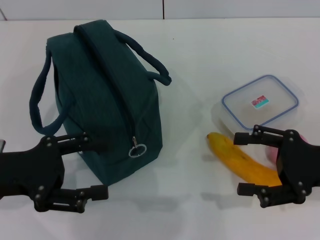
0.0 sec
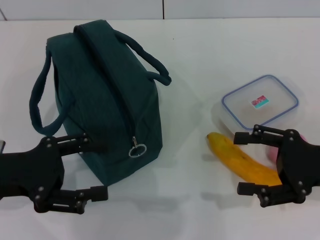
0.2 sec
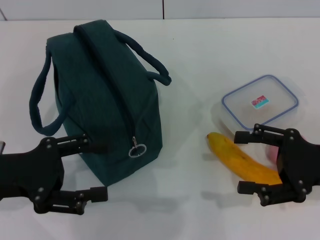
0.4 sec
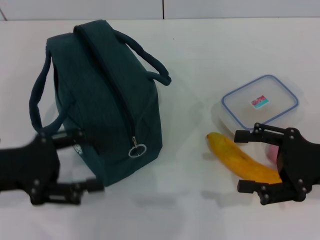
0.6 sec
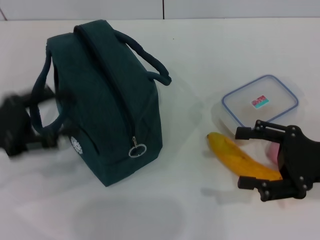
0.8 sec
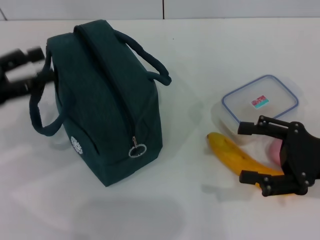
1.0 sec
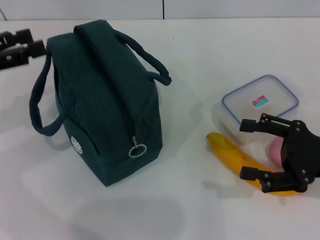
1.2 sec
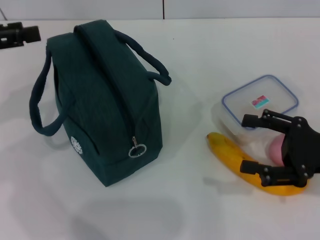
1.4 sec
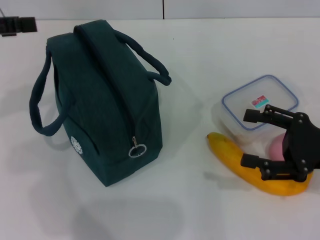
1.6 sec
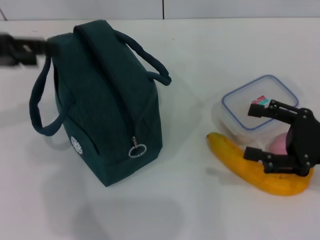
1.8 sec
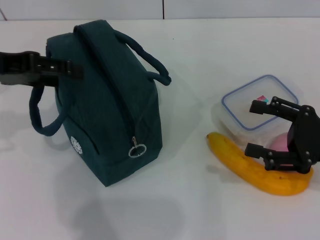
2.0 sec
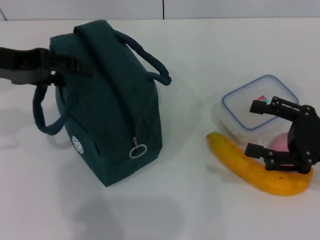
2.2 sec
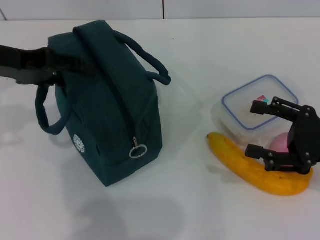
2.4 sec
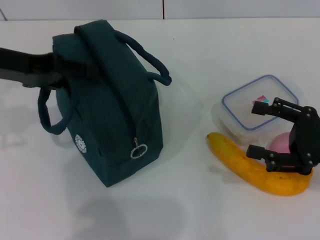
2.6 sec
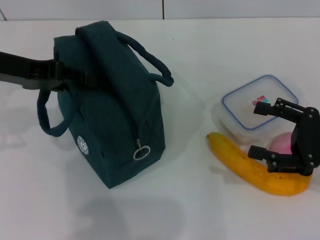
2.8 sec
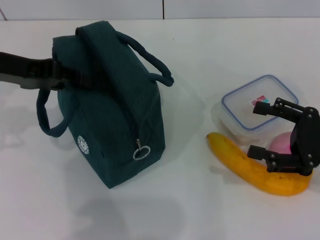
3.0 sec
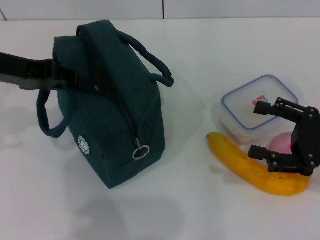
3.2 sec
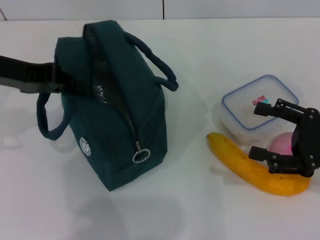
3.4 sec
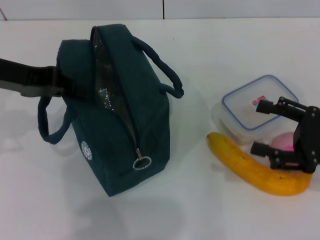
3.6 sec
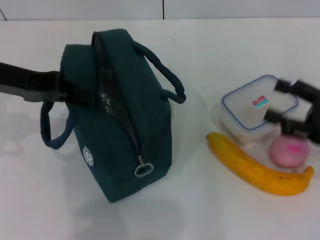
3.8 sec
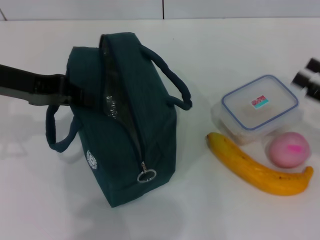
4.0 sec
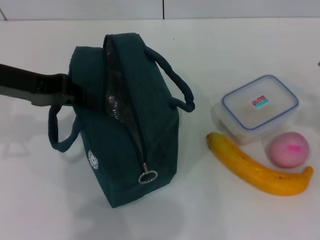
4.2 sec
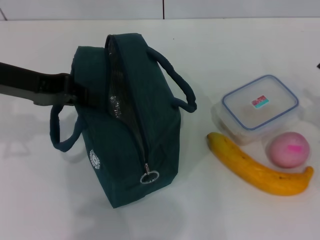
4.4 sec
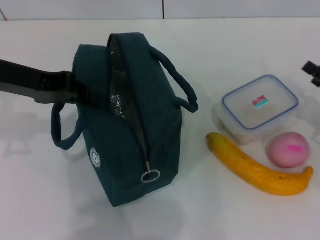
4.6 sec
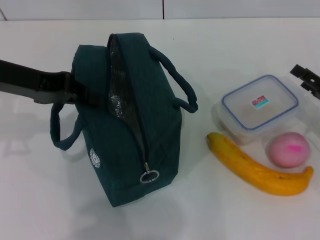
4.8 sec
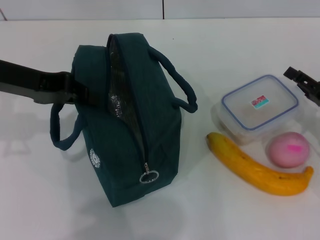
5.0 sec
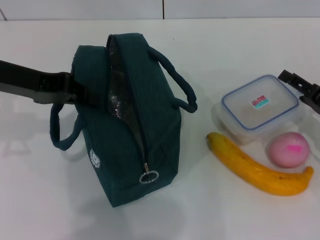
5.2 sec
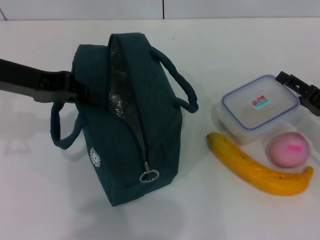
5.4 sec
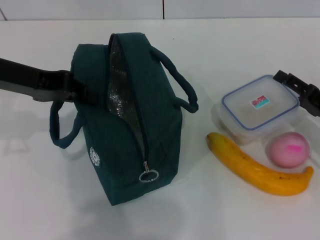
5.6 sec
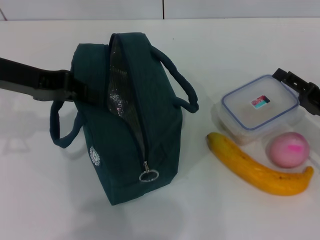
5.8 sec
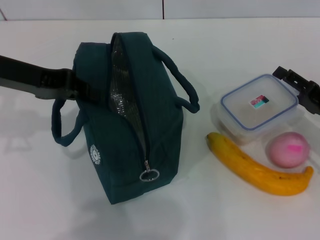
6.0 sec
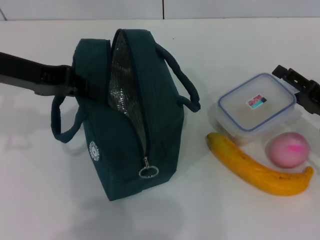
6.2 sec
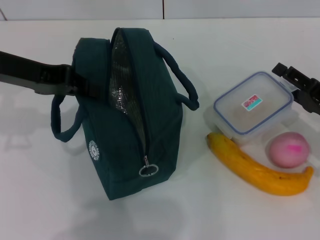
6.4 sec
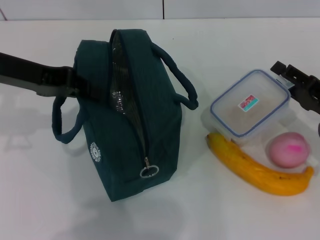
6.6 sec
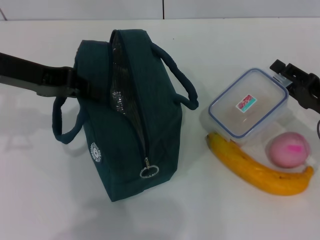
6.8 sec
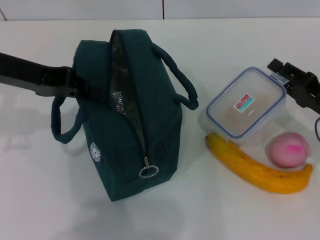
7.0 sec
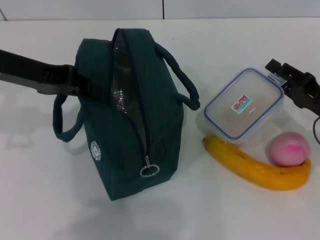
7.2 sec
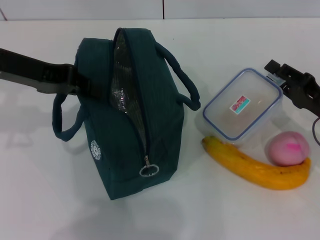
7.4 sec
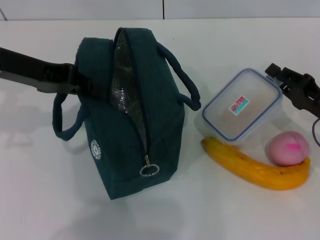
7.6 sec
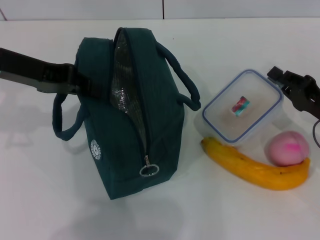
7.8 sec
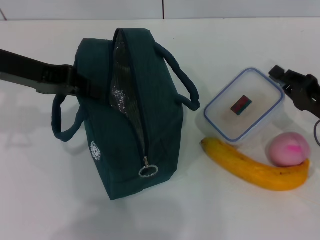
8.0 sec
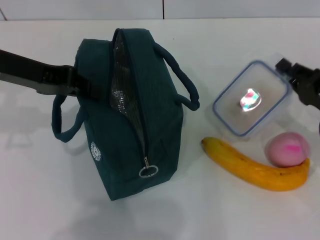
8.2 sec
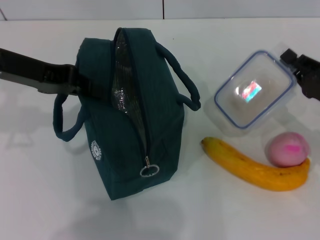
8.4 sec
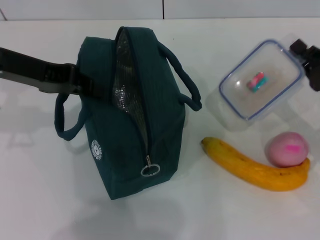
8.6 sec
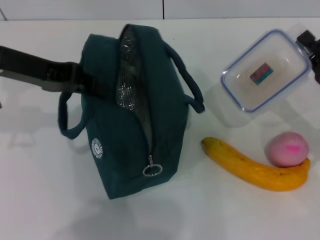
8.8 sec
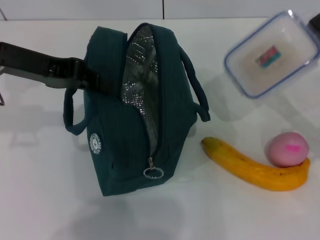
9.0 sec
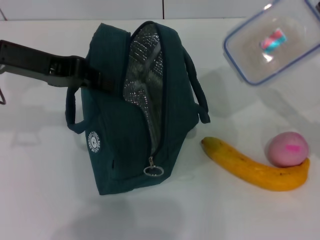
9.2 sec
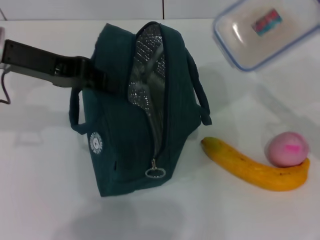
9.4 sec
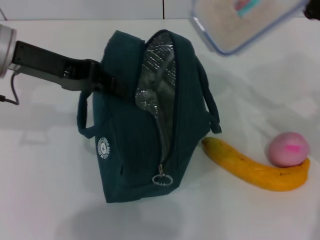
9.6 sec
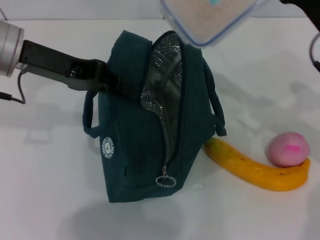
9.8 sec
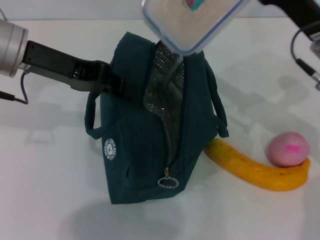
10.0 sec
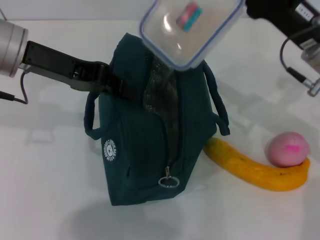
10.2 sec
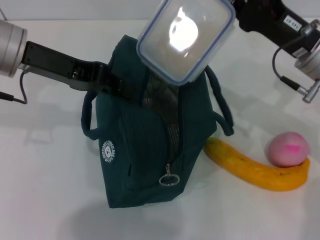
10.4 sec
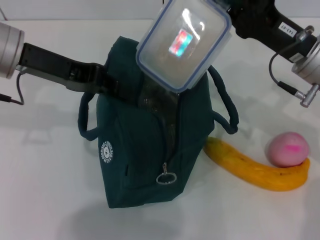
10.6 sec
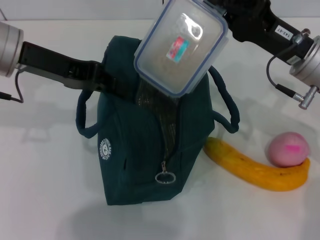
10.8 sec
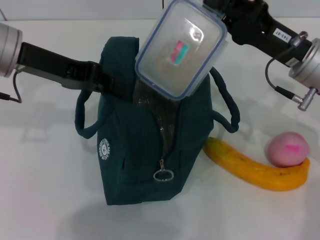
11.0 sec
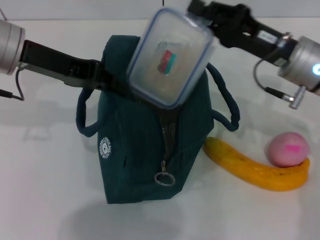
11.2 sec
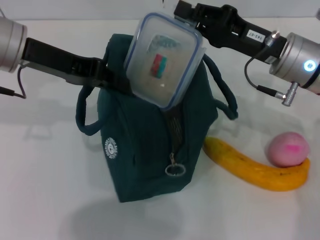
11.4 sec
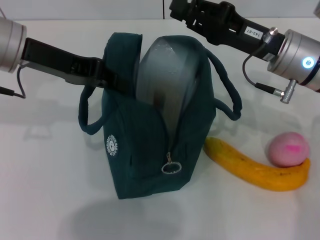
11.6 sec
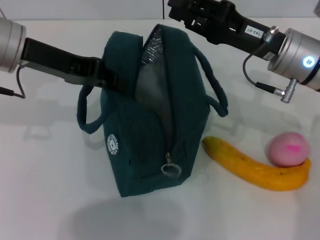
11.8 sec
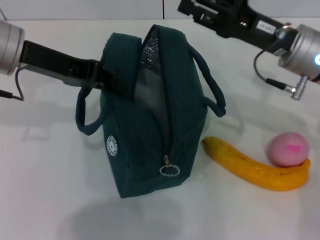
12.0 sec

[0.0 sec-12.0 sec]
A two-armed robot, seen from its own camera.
Step, 0.0 sec to 4.2 sec: Hold the lunch bag with your left hand.
Step, 4.4 sec to 7.8 sec: Pick up the lunch box with your right hand.
Step, 8.0 sec to 11.6 sec: Place the lunch box into the lunch bag with your right hand.
0.0 sec to 1.6 sec: The left gripper shifts approximately 15 cm upward and forward.
1.6 sec to 3.0 sec: The left gripper travels to the right by approximately 5 cm.
3.0 sec to 4.4 sec: The left gripper closes up. Meanwhile the right gripper travels to the right by about 5 cm.
4.4 sec to 6.0 sec: The right gripper heads to the left, covering approximately 5 cm.
6.0 sec to 7.6 sec: The right gripper closes its fingers.
7.6 sec to 9.0 sec: The right gripper closes its fingers.
9.0 sec to 10.4 sec: The right gripper shifts some 10 cm to the left, forward and upward.
10.4 sec to 12.0 sec: The right gripper opens its fingers.

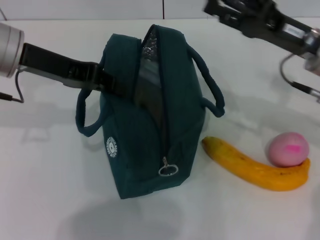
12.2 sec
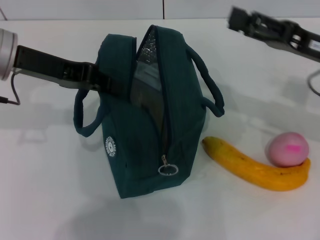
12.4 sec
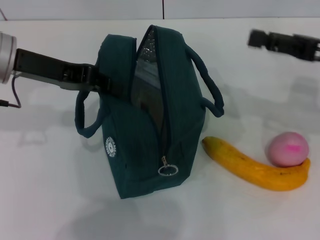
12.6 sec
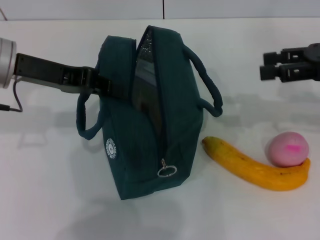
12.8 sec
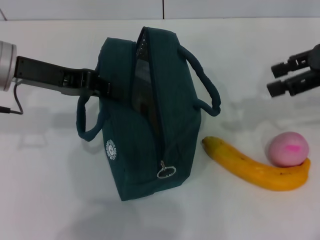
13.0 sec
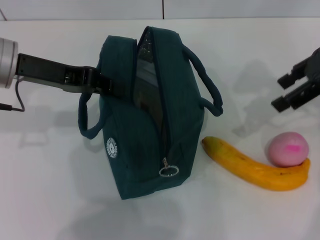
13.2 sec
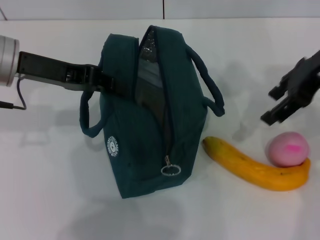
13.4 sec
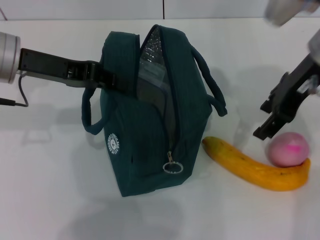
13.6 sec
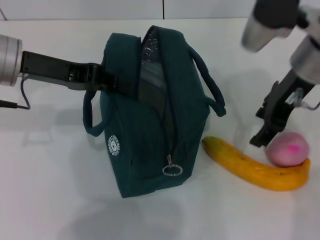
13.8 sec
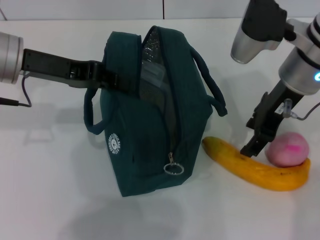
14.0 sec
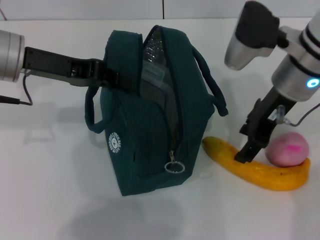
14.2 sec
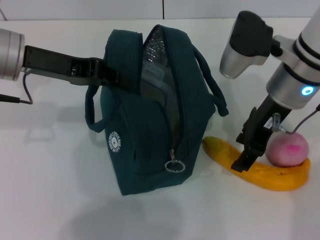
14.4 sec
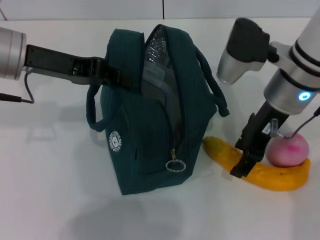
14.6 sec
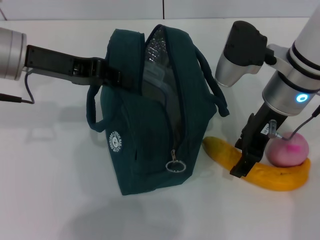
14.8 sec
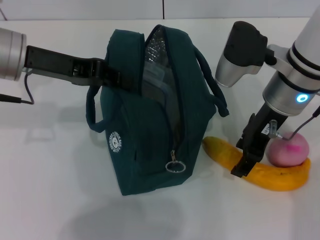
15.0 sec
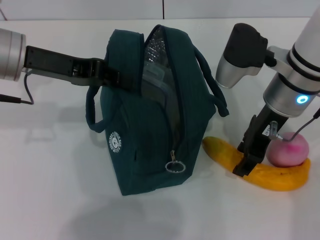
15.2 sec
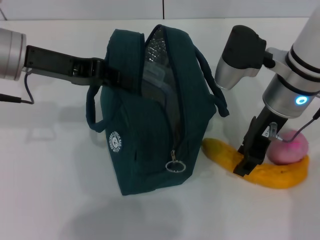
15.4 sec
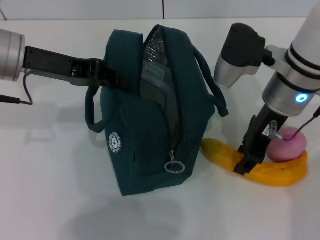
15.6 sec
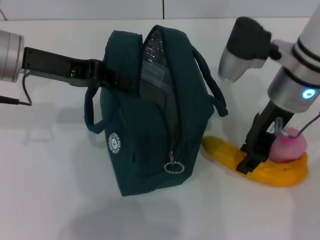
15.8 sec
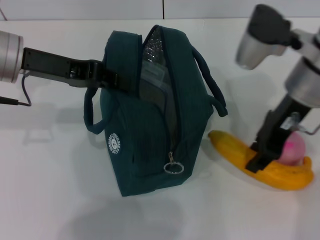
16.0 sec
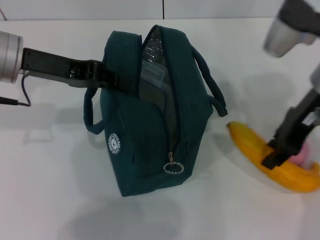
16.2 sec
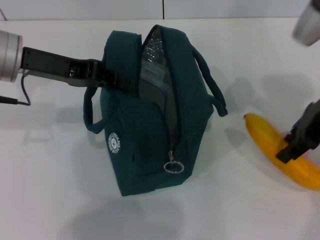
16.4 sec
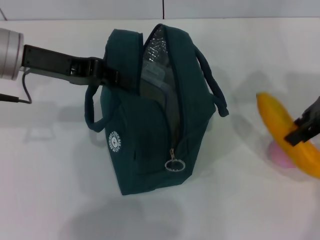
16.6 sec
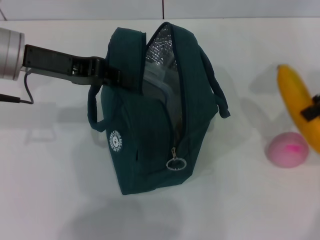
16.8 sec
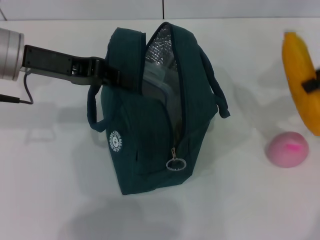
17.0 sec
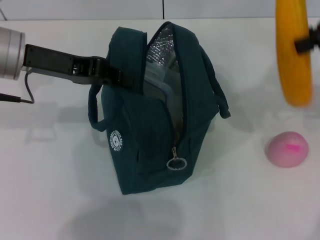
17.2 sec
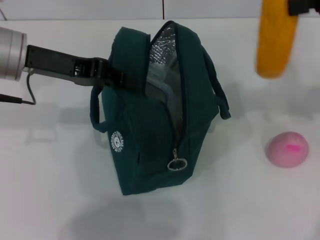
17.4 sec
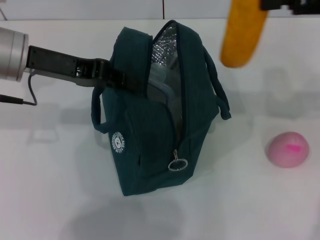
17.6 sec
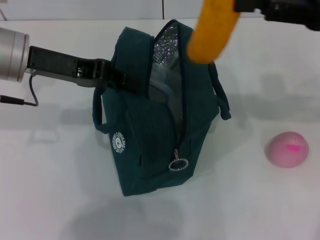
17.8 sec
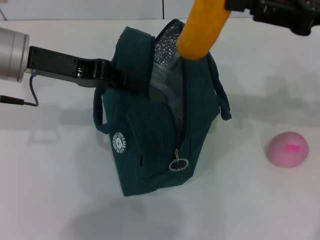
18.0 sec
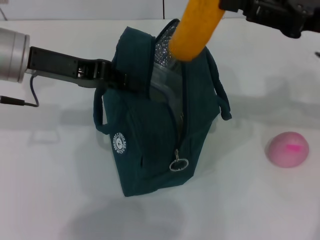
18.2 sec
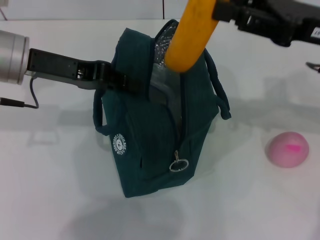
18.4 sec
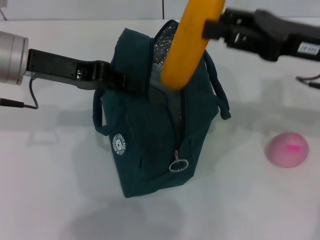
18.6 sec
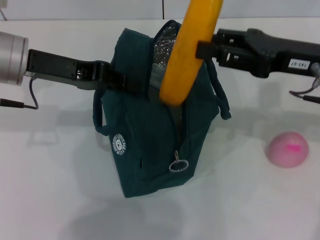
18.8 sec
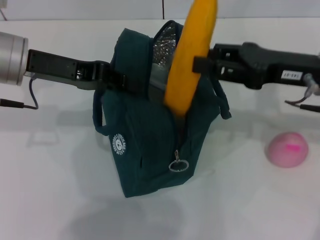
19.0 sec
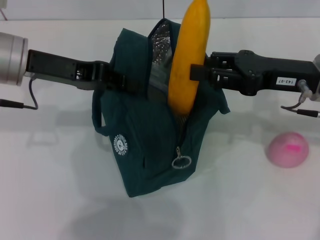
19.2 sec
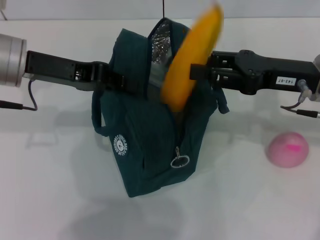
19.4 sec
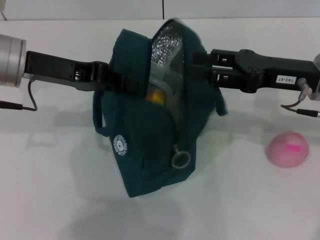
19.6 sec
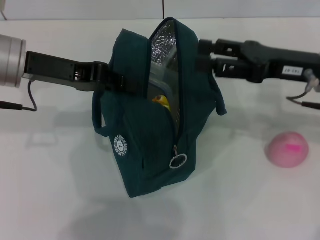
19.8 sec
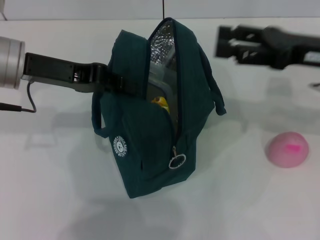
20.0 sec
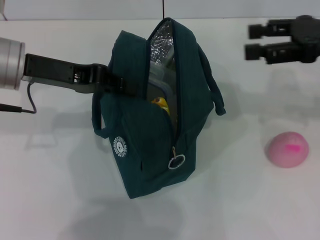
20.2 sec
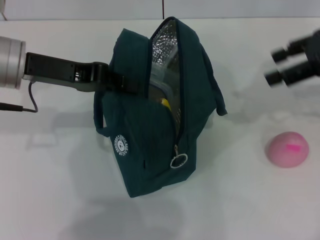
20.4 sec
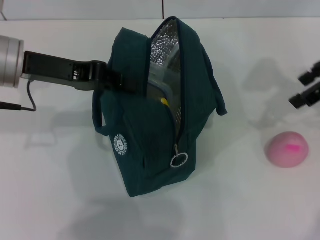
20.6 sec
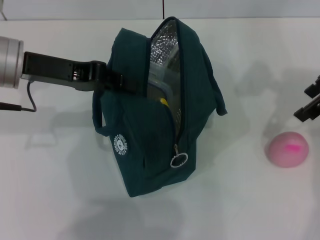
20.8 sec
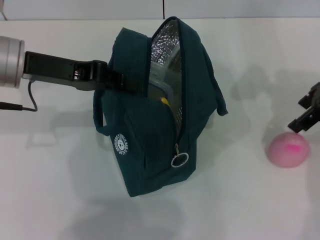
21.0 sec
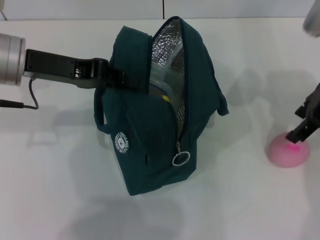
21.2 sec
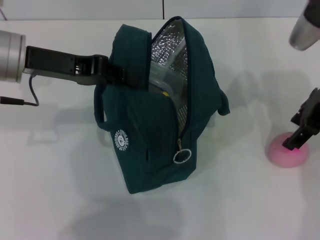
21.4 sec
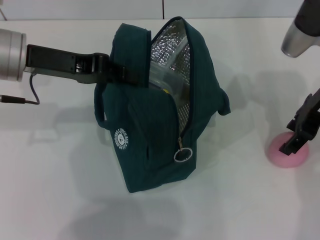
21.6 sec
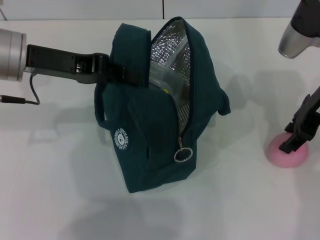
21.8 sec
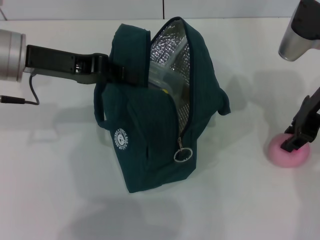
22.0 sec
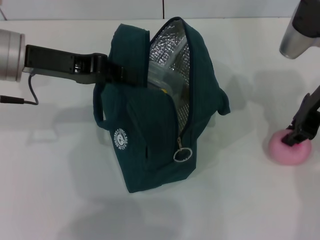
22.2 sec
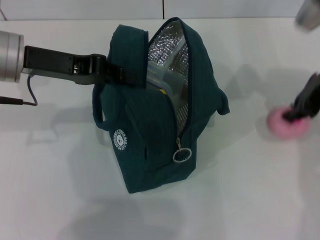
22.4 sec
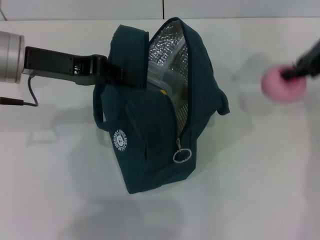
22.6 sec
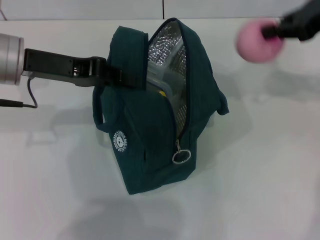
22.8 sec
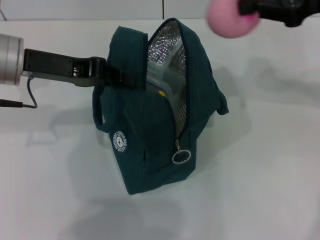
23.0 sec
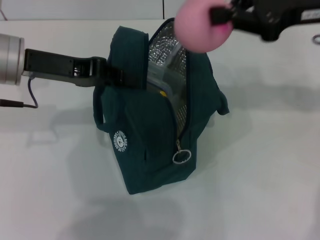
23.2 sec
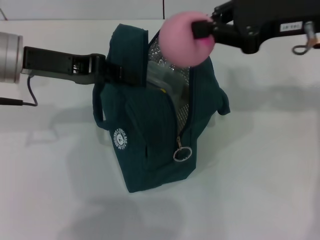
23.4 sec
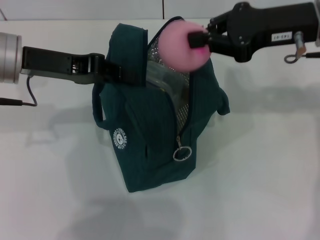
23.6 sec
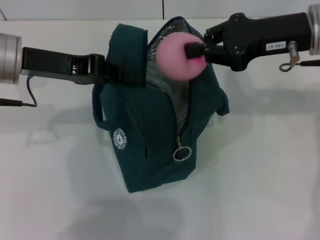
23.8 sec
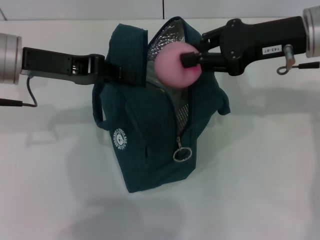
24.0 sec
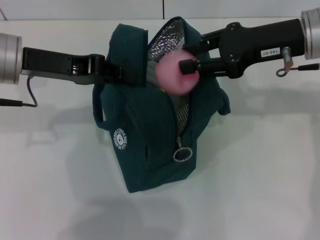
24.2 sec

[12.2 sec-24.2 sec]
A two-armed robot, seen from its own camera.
Step, 12.2 sec to 15.2 sec: Take the banana with your right hand.
Step, 15.4 sec to 20.0 sec: Put the banana into the lunch bag with your right hand.
Step, 20.2 sec to 22.0 sec: Grab the peach with your right hand.
12.2 sec to 13.8 sec: The right gripper heads upward and to the left, covering roughly 10 cm.
13.8 sec to 15.2 sec: The right gripper ends up about 5 cm from where it was.
15.2 sec to 16.6 sec: The right gripper moves to the right and upward, roughly 15 cm.
16.6 sec to 18.2 sec: The right gripper reaches approximately 10 cm upward, then returns.
18.2 sec to 19.8 sec: The right gripper moves downward, approximately 5 cm.
21.2 sec to 22.6 sec: The right gripper ends up approximately 5 cm from where it was, and closes its fingers.
22.6 sec to 24.2 sec: The right gripper shifts some 5 cm to the left.
